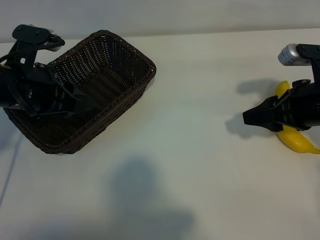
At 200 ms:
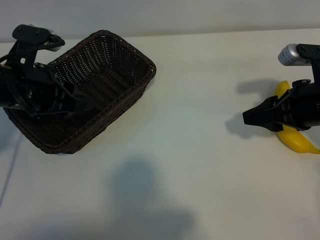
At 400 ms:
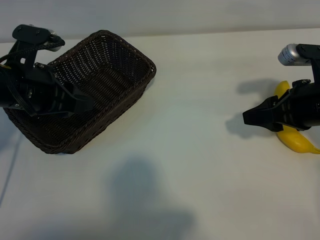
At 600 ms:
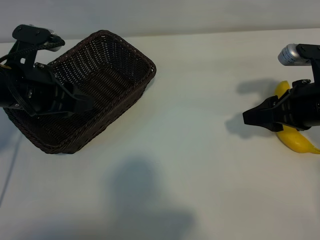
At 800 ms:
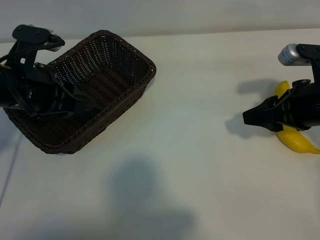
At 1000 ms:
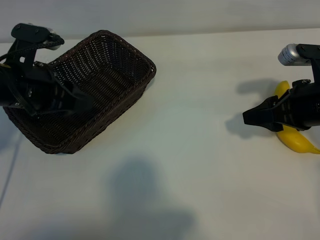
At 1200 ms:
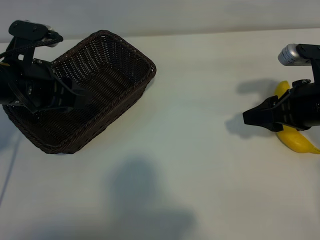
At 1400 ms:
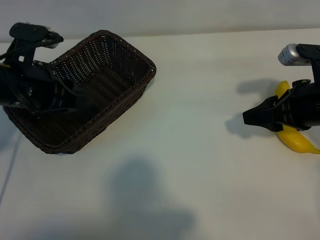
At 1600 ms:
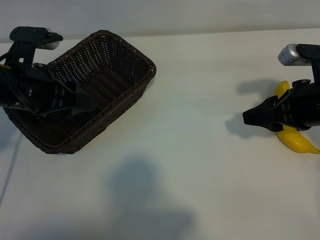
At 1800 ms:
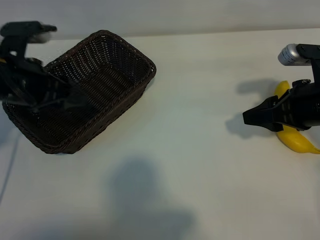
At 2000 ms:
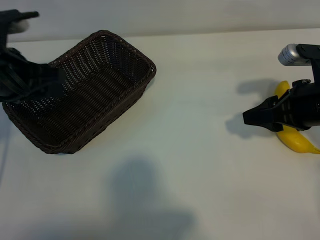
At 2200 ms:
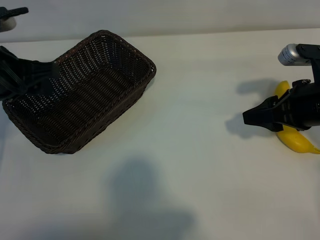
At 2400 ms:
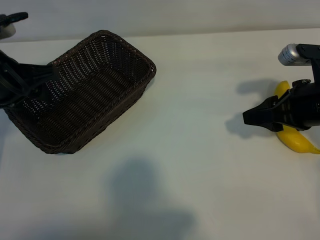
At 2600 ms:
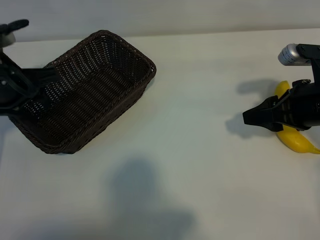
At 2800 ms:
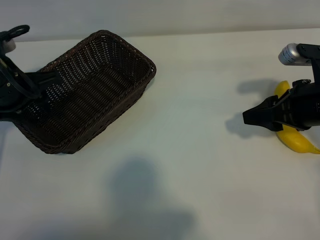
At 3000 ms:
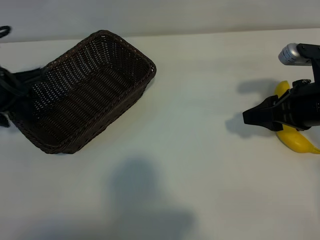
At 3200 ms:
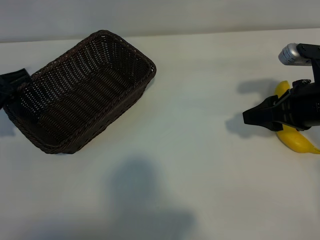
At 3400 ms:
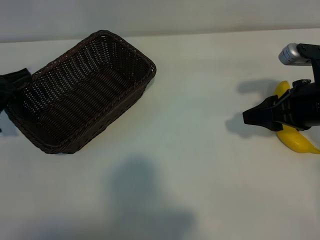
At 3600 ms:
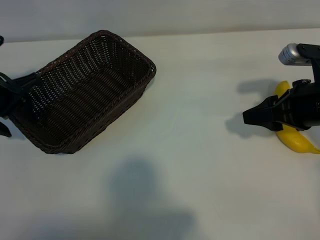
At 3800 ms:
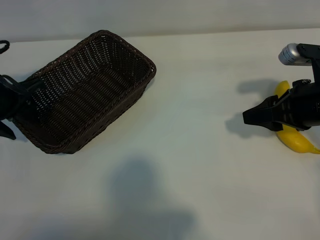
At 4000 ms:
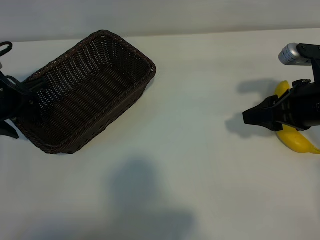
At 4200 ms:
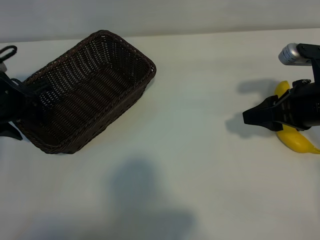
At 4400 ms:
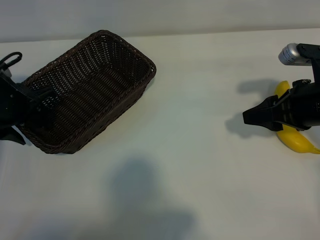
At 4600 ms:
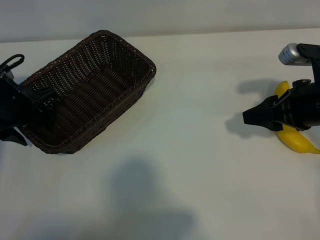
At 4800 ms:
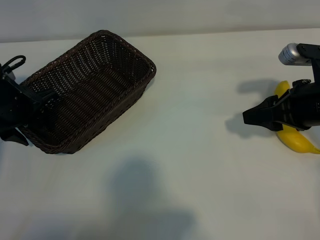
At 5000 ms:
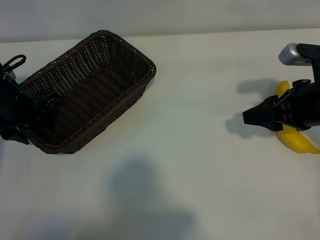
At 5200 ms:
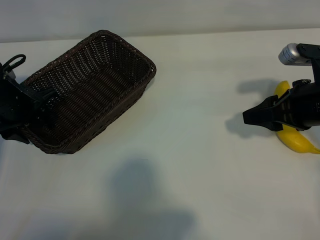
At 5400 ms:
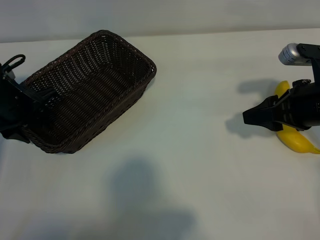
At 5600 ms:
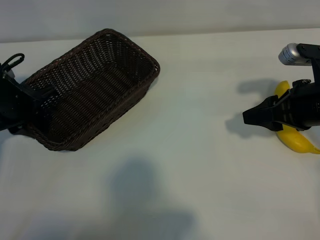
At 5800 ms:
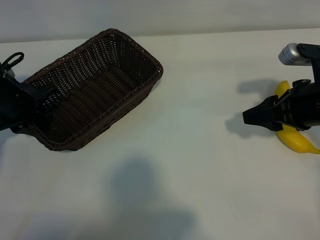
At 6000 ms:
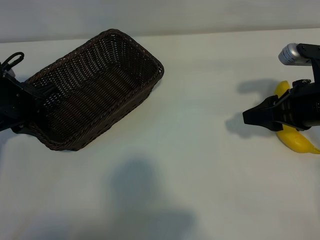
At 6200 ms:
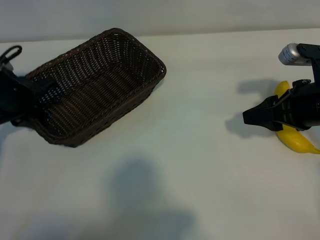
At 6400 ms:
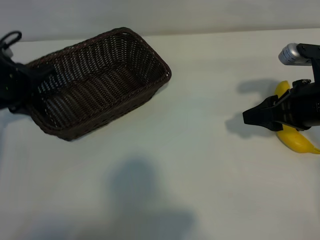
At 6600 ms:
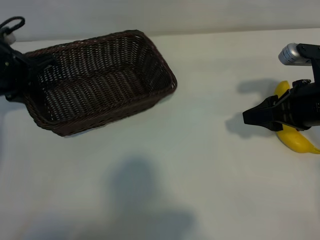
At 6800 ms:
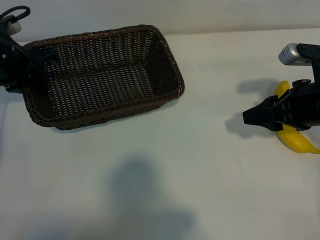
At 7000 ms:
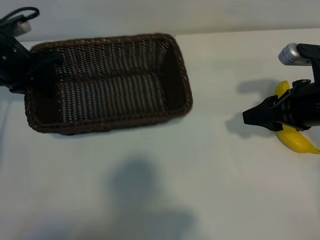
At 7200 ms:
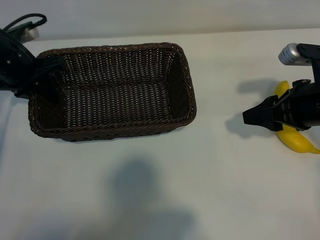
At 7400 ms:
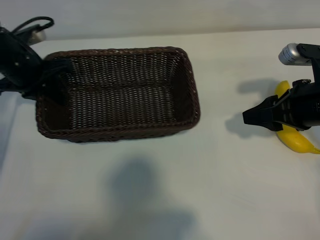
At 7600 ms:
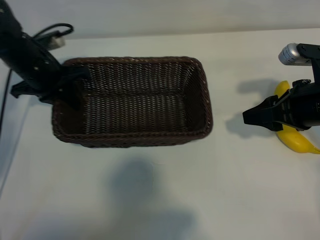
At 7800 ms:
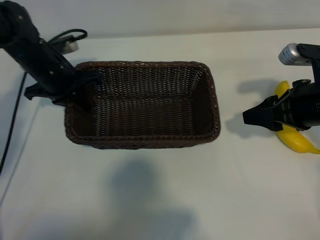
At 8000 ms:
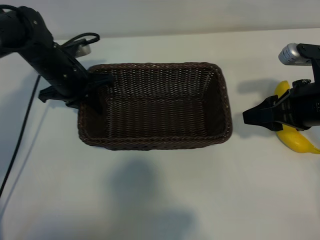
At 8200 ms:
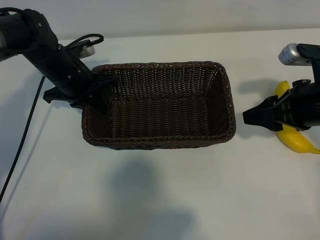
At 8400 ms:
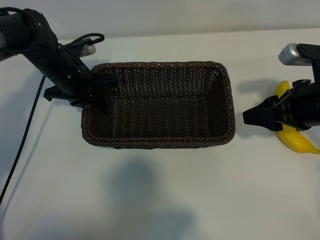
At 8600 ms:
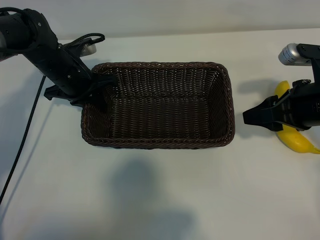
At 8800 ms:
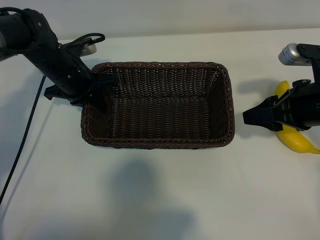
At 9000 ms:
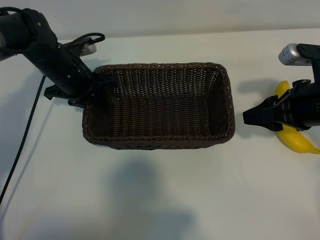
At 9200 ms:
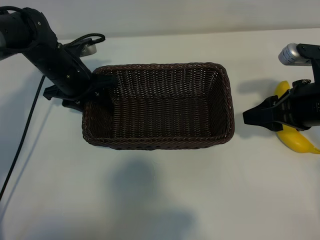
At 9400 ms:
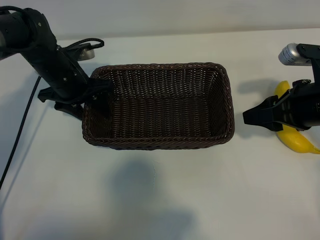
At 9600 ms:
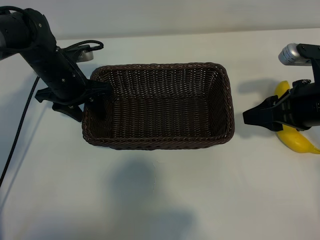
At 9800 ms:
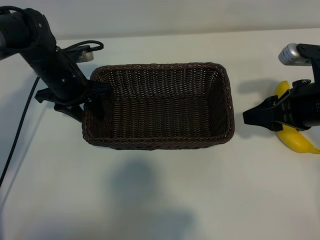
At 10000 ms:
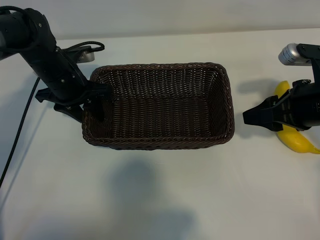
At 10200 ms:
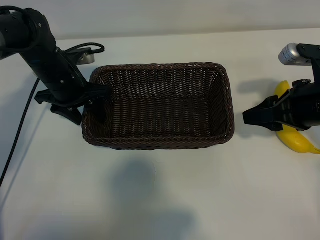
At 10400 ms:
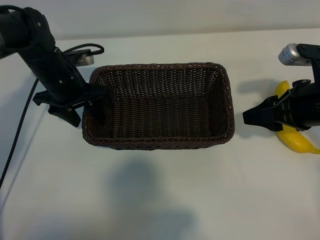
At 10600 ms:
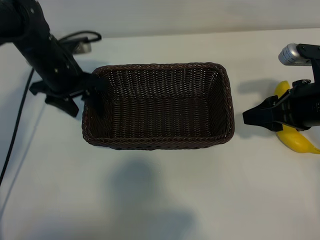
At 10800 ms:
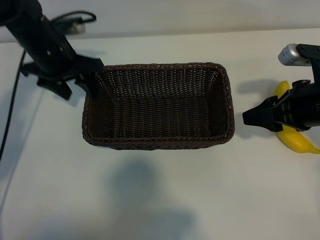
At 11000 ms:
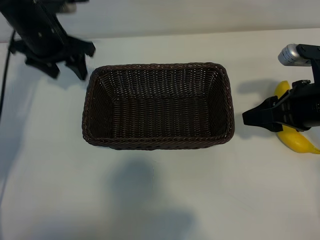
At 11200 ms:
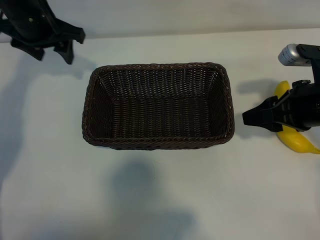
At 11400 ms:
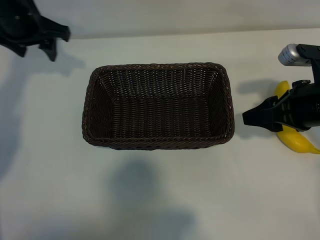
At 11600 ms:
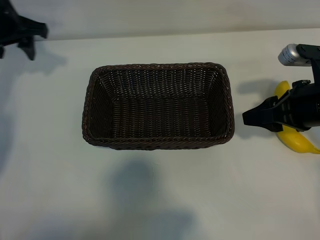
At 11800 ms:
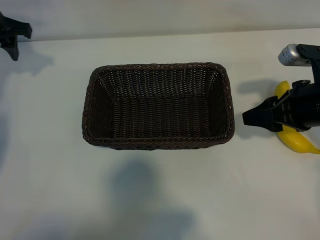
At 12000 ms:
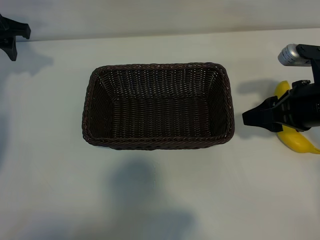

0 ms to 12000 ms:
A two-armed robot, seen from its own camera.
Task of the whole recording: pick up the banana and put it into the basket.
Step, 1000 ms to 5600 ms: Grasp the basket with the left gripper.
Step, 6000 ms to 10600 ms: Place the basket in the center of the table with the left gripper.

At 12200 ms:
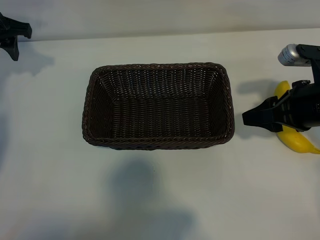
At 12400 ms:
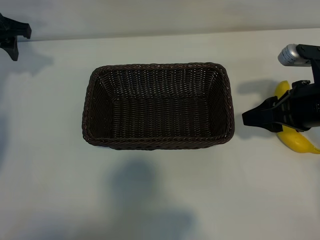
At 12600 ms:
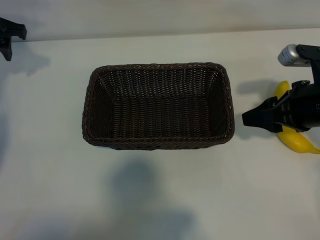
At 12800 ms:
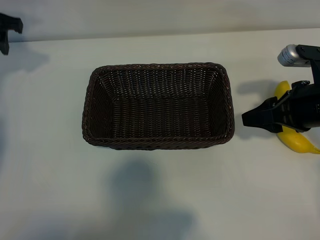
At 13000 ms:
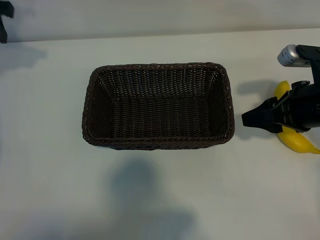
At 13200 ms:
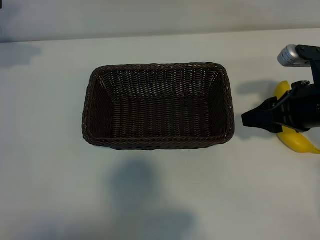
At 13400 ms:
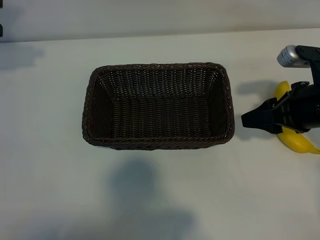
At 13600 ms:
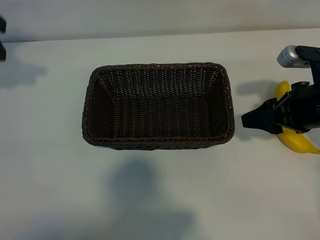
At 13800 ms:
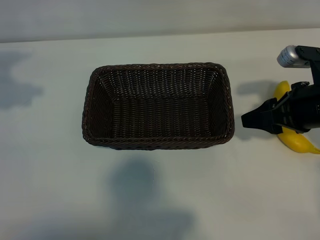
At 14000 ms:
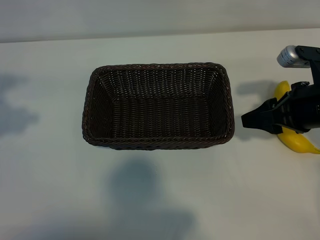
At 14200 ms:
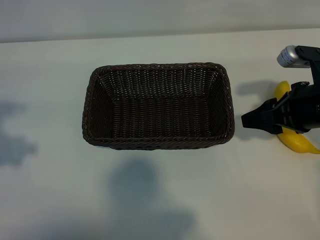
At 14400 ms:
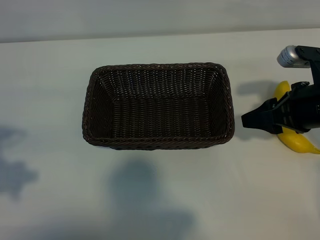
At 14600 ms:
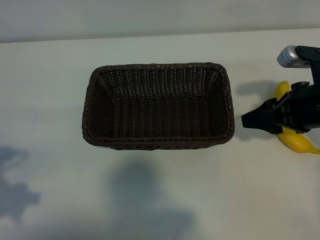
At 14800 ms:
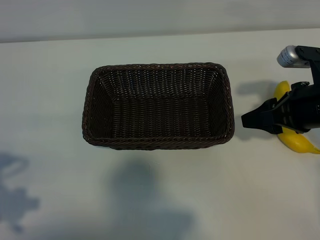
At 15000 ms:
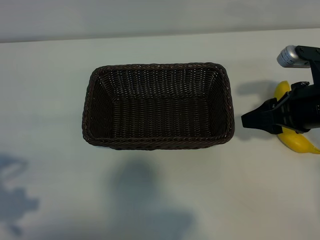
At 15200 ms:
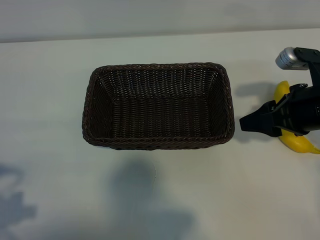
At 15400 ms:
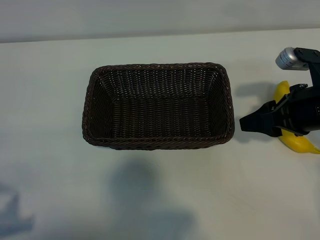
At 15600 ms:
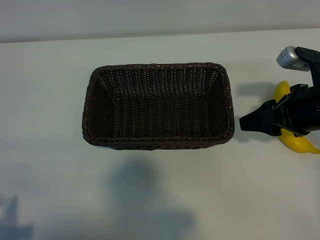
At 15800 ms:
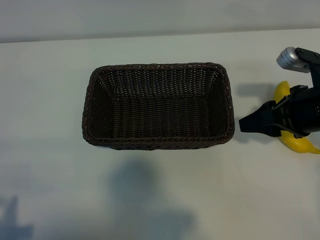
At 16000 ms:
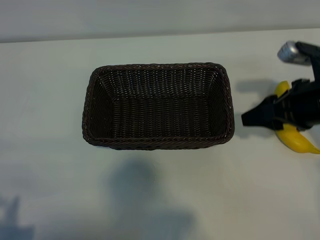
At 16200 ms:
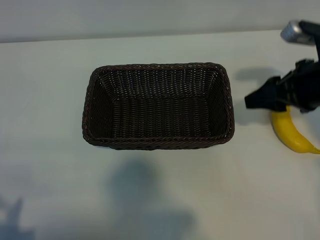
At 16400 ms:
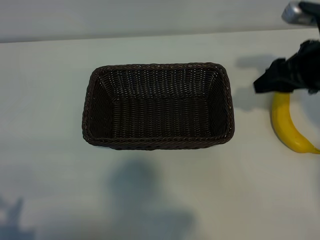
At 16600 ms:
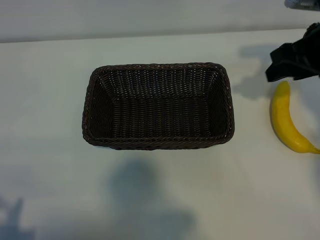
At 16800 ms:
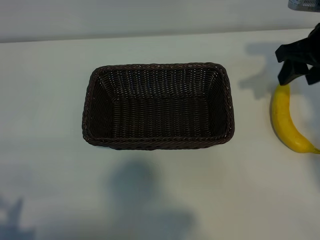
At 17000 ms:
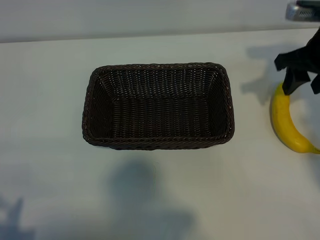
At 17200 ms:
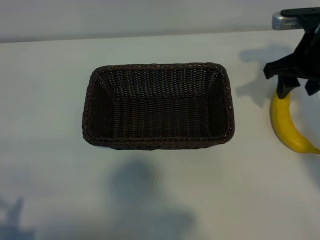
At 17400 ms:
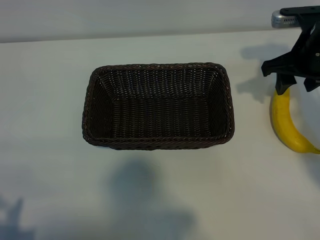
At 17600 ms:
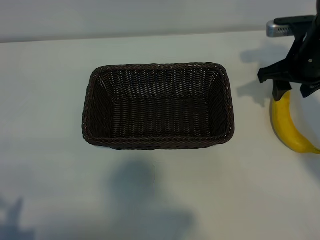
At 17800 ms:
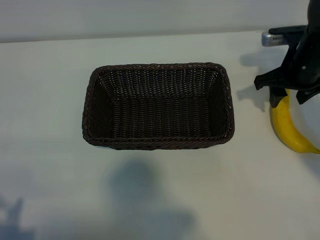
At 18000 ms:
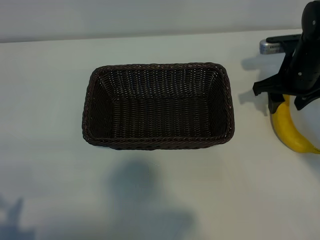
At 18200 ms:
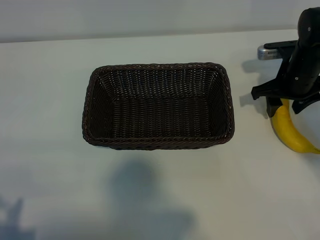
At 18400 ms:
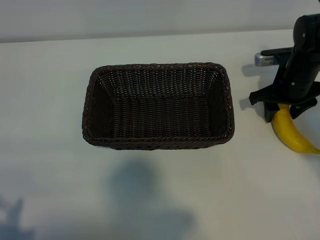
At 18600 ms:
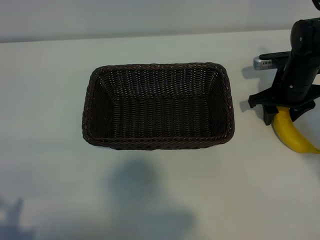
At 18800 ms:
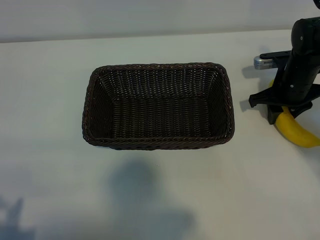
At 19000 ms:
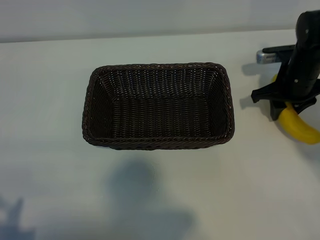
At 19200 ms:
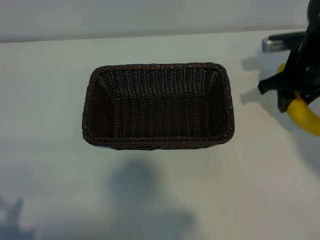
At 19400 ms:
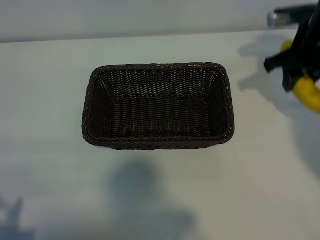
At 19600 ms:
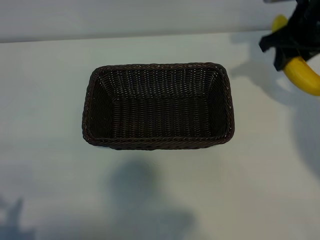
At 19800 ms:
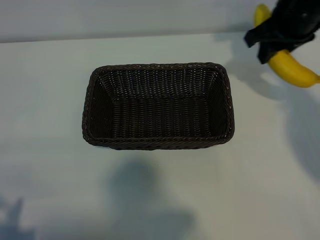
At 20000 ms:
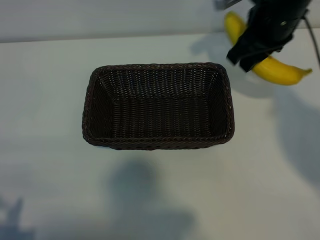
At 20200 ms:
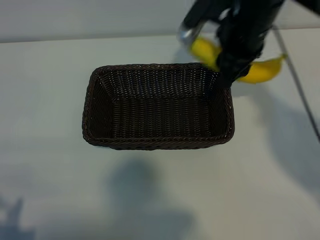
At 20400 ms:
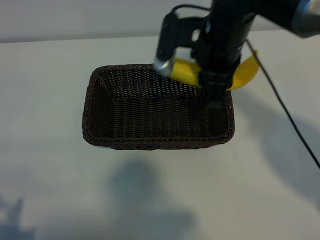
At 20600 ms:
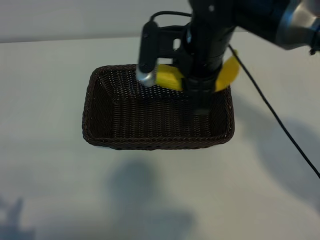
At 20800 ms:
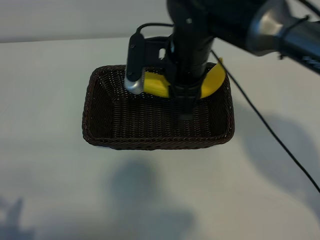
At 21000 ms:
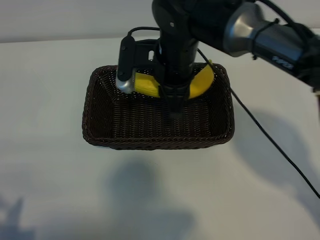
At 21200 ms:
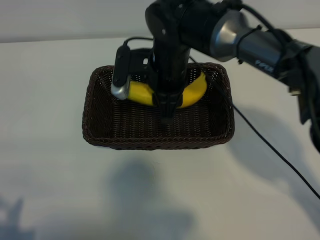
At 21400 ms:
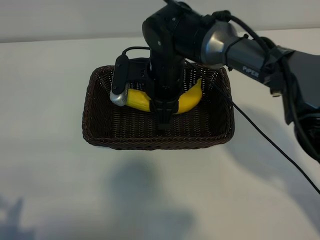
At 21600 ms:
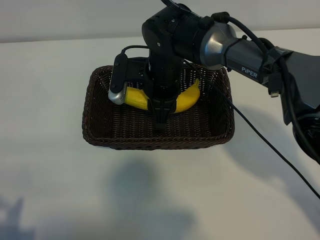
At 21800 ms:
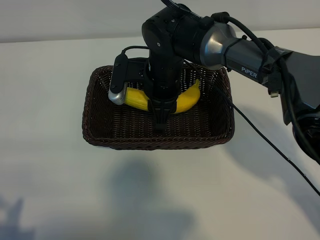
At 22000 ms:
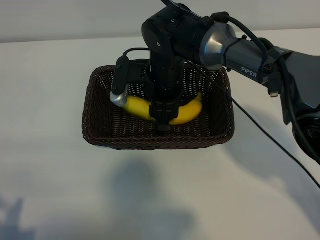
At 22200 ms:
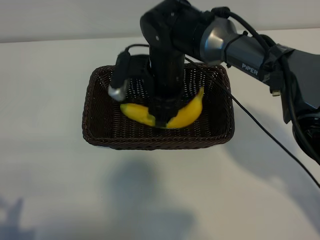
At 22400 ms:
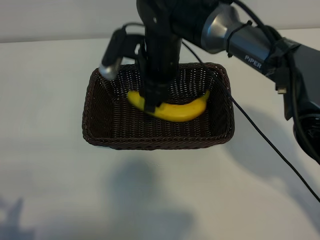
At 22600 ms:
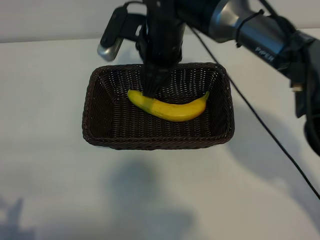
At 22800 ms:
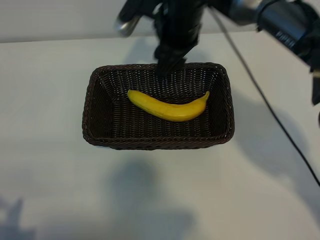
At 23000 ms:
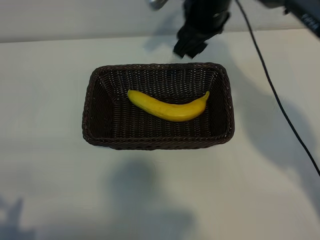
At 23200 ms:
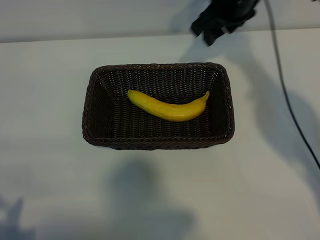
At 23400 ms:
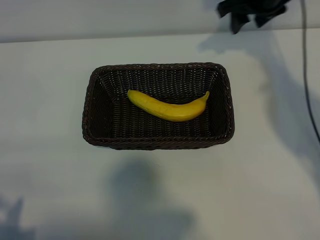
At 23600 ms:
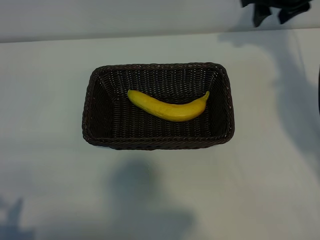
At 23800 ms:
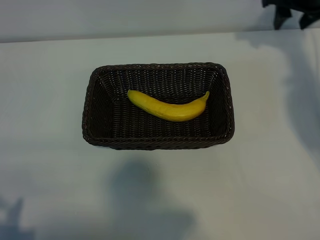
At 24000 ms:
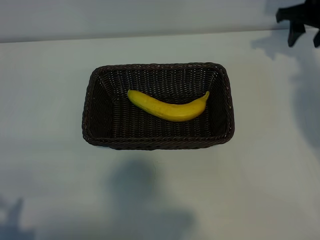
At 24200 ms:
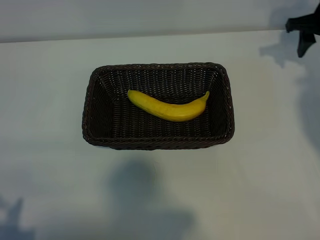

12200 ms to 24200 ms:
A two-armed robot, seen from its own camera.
Task of the whole recording: pick up the banana and put it into the basket.
Step, 12200 ms to 18600 ms: Grasp the banana with right gripper.
Step, 18800 ms to 22600 ms: Place the banana in the basket with right gripper.
